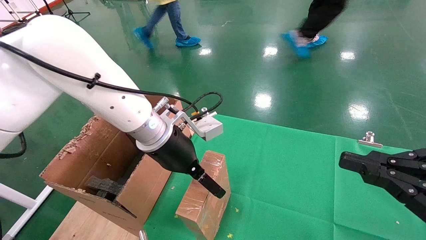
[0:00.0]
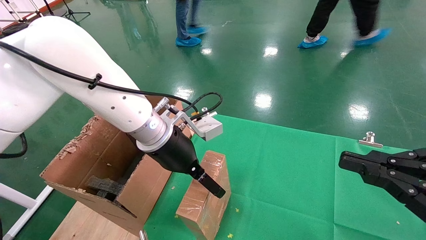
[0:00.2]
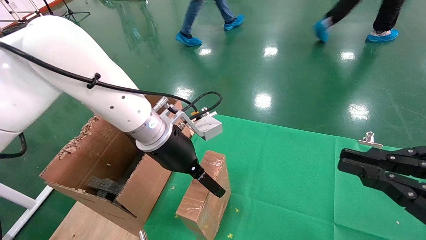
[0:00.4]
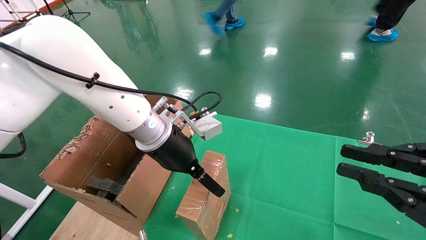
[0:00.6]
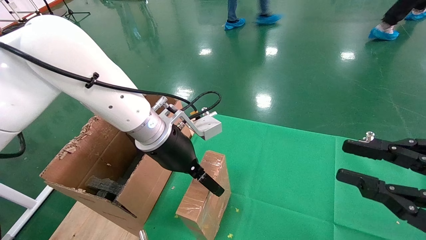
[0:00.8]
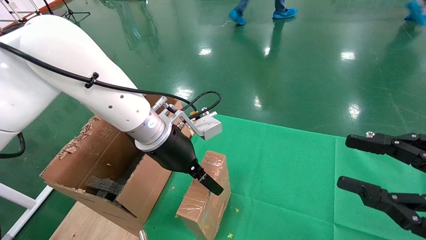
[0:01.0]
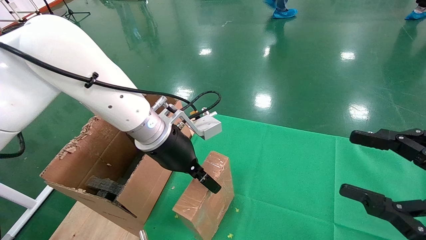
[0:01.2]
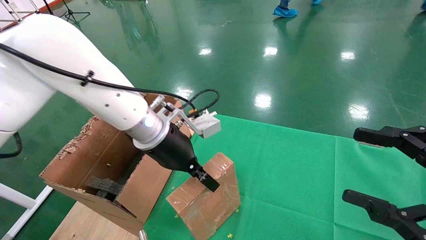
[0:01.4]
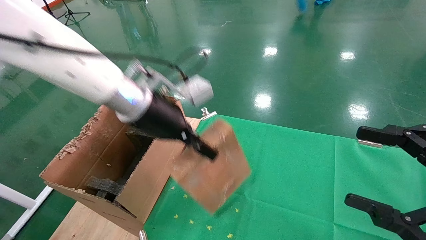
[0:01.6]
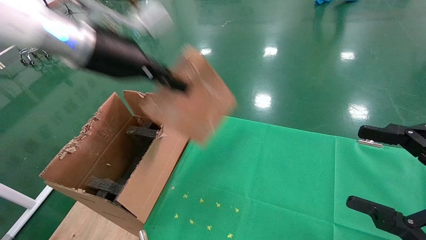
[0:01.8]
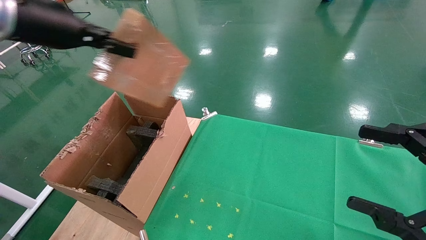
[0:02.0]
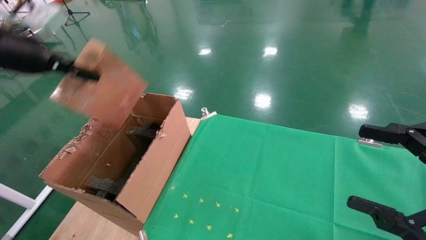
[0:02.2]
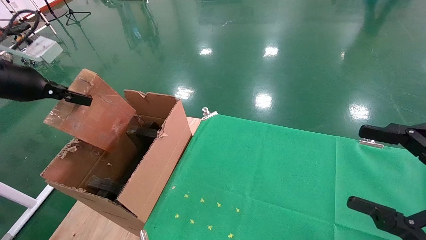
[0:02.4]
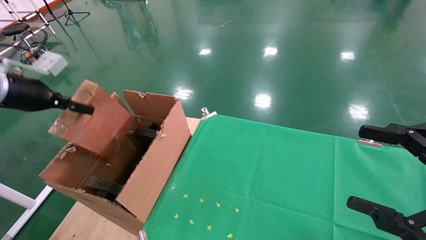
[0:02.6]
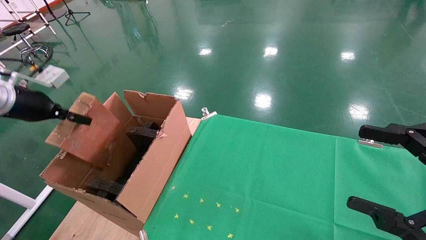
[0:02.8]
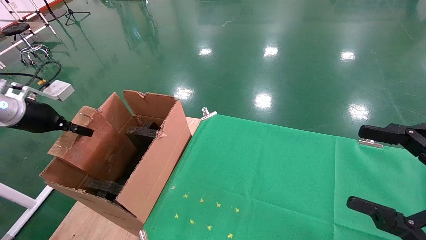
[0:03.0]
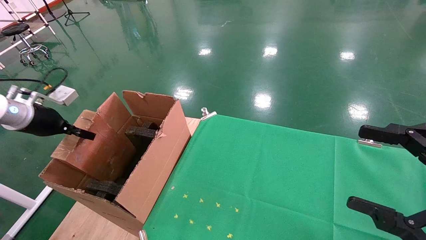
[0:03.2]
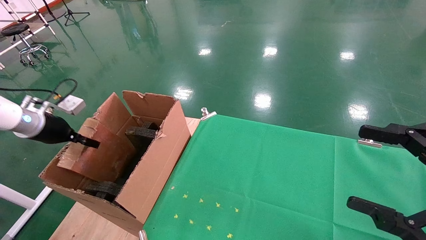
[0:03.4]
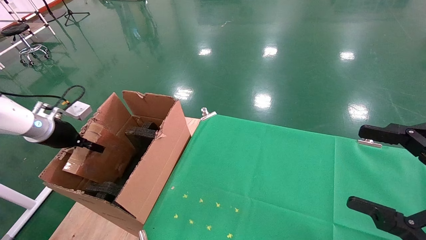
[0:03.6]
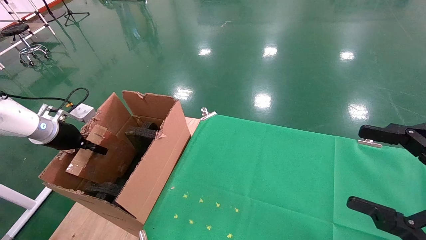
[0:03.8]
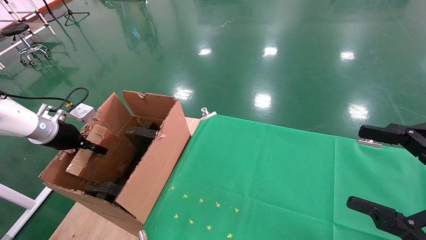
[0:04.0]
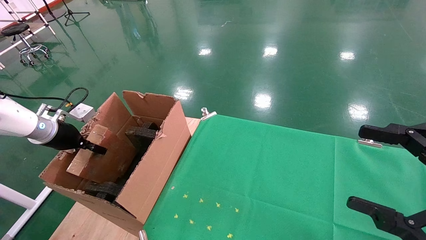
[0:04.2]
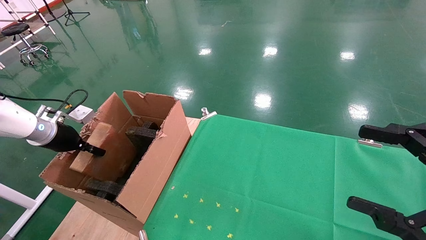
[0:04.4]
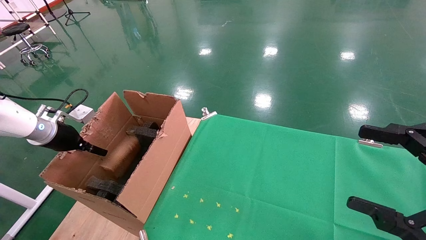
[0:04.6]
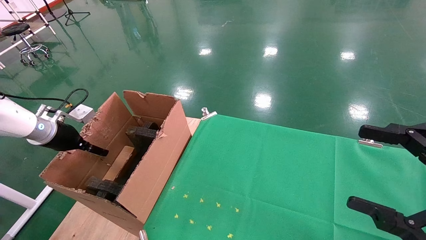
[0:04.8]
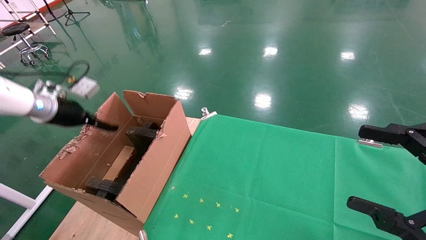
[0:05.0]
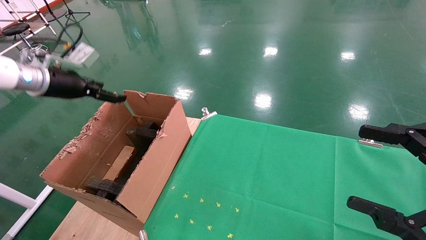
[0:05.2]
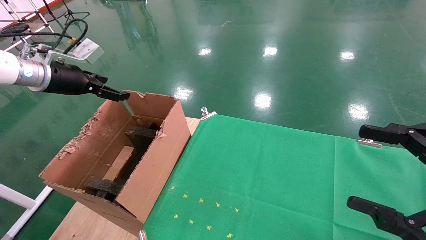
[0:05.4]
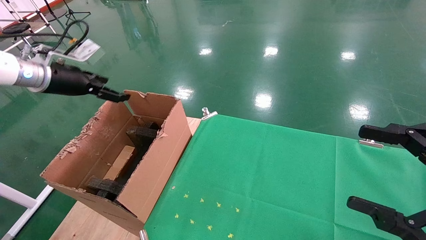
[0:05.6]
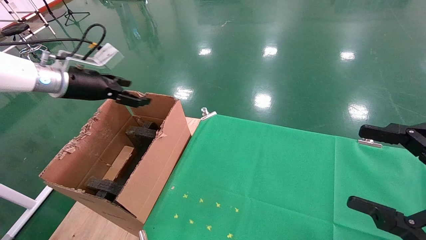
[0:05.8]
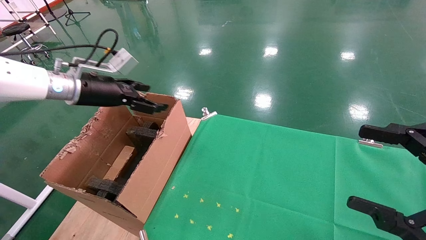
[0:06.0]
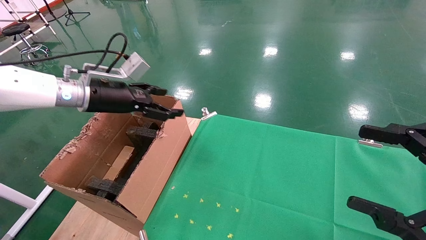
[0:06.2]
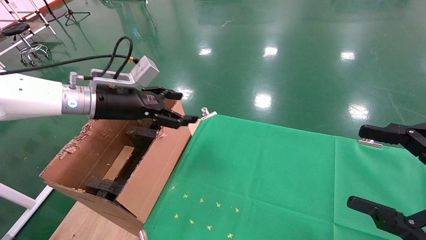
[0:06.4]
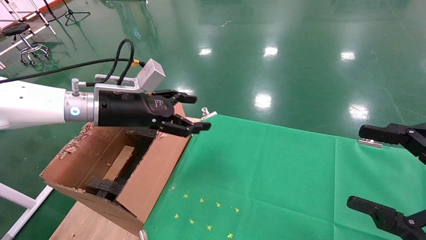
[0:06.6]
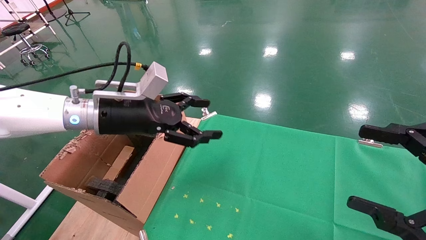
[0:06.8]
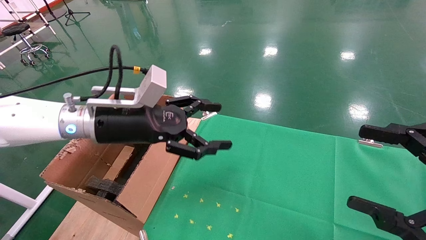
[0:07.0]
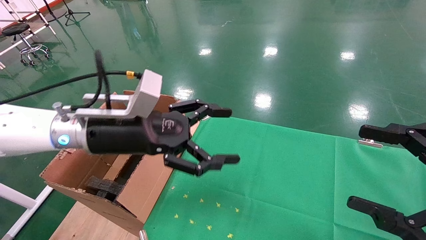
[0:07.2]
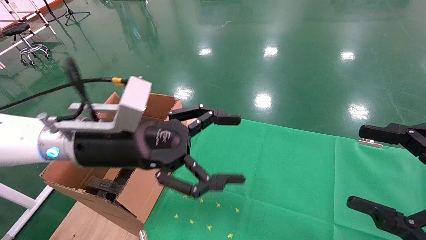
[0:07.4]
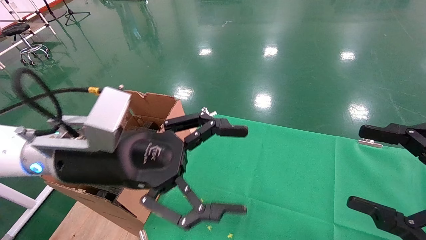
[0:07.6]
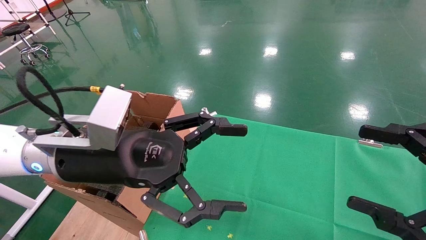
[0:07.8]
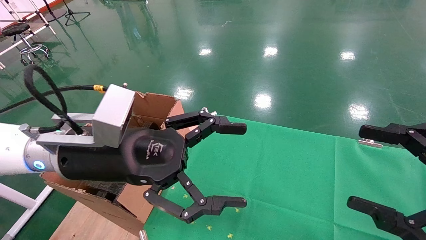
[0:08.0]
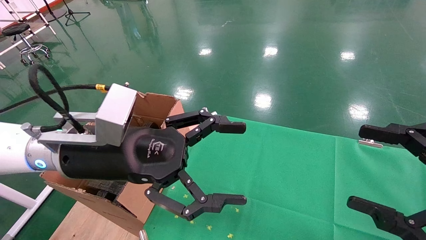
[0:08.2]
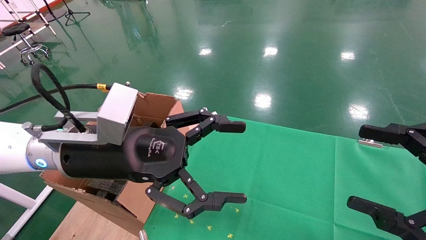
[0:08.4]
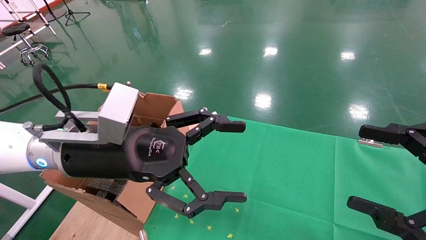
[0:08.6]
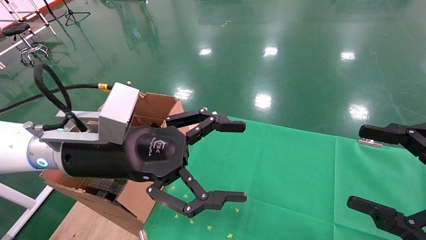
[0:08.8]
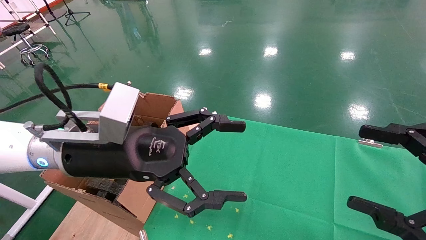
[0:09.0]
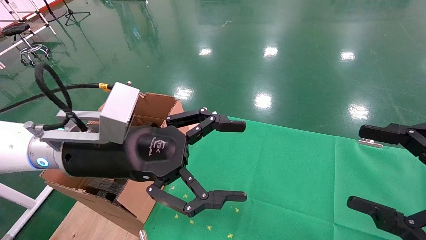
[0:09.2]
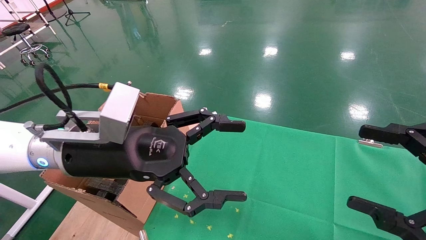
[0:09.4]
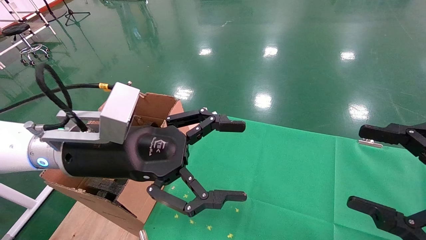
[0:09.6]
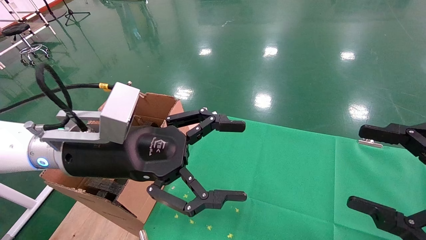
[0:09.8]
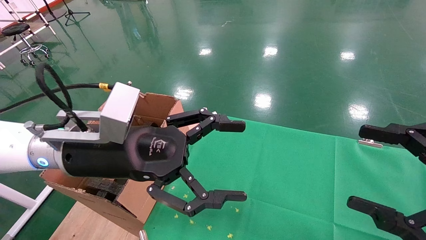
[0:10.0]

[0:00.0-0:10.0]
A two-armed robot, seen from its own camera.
Task of the whole recording: using a robotic arm to pick up a cardboard box and palace it the carton.
Step, 0:01.6 to 0:05.2: Place the mouse and the power cord paper box into the container.
0:00.0 to 0:01.4: The right gripper opens its fingers. The left gripper closes up.
0:01.4 to 0:02.8: The left gripper goes roughly 35 cm to the left.
0:02.8 to 0:04.2: The left gripper shifts some 10 cm downward and forward.
0:04.2 to 0:05.8: The left gripper is displaced upward and to the right by approximately 15 cm, and opens.
0:05.8 to 0:07.2: The left gripper goes some 20 cm to the right and backward.
0:07.2 to 0:08.6: There are only small adjustments of the grippers.
0:08.6 to 0:10.0: Both grippers stay about where they are.

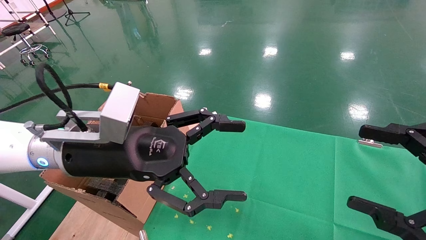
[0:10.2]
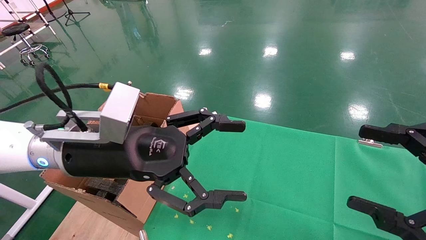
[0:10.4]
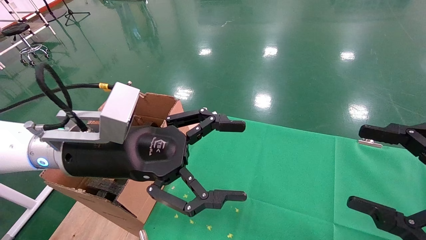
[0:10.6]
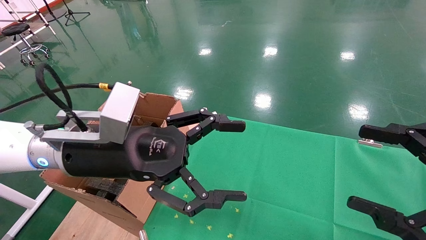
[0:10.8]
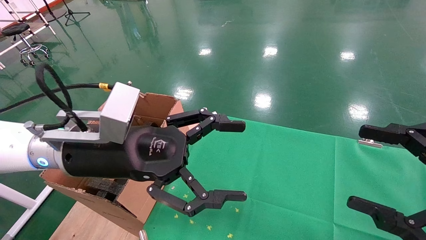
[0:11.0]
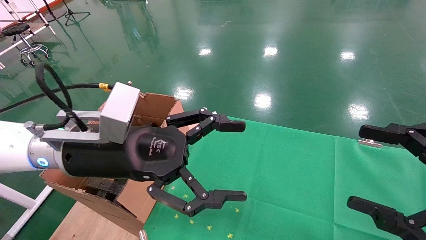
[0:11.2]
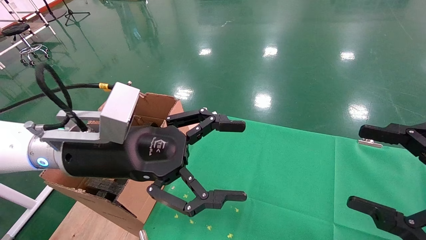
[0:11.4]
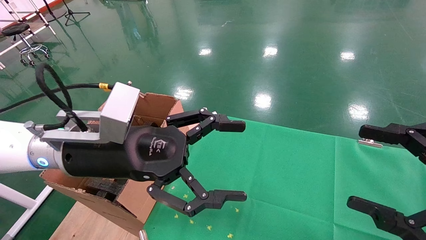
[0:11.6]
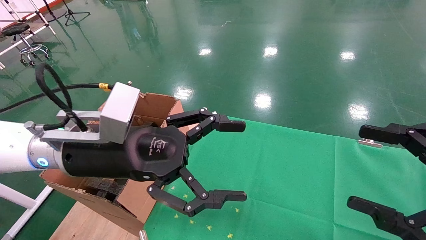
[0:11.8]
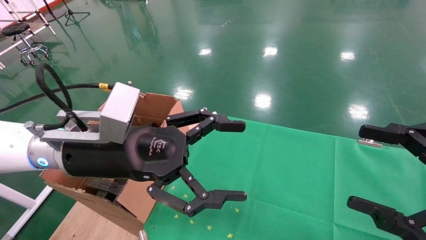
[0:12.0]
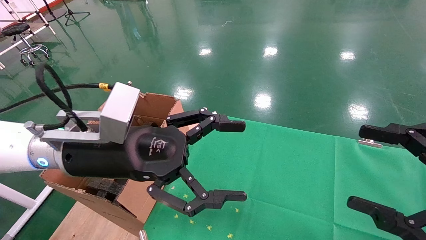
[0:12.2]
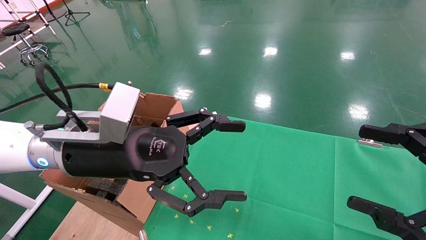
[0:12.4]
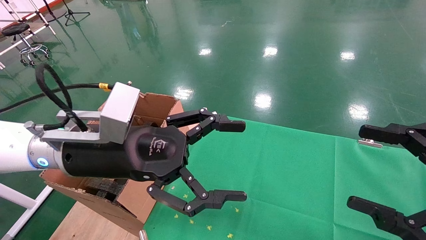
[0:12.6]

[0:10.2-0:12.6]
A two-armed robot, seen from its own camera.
Task of the whole recording: using a robotic arm to pick up a cardboard box and palace it the carton.
0:10.2 to 0:12.6: The two grippers keep their place.
